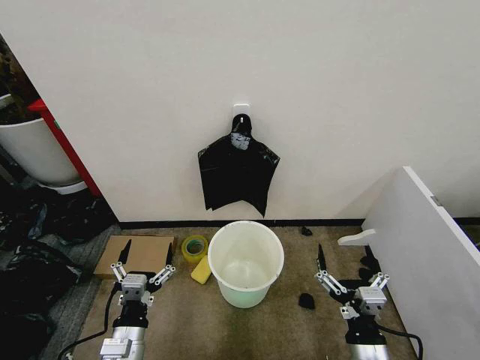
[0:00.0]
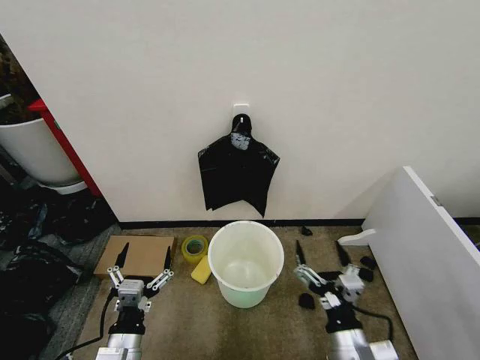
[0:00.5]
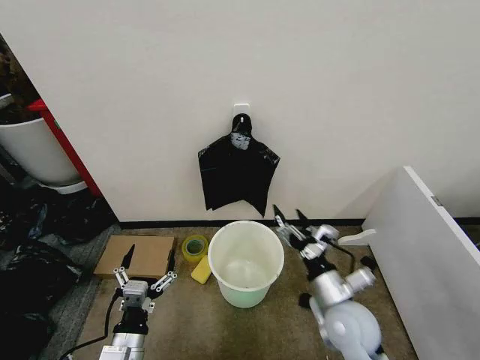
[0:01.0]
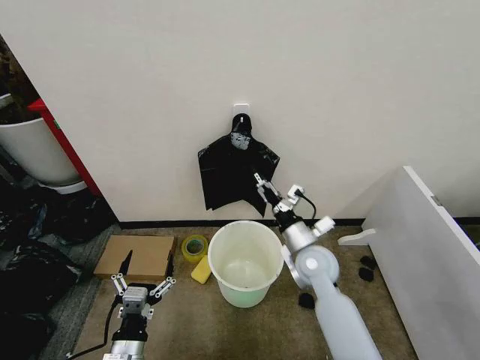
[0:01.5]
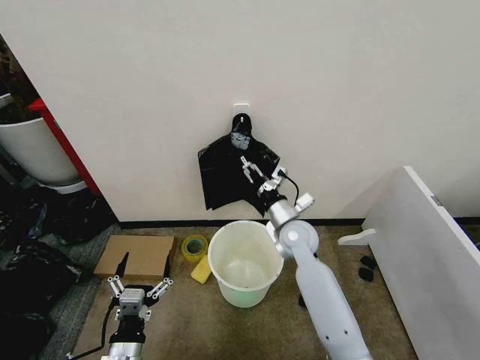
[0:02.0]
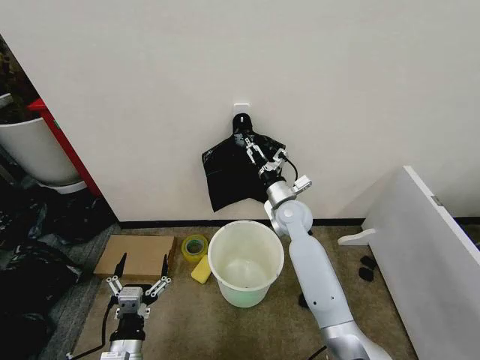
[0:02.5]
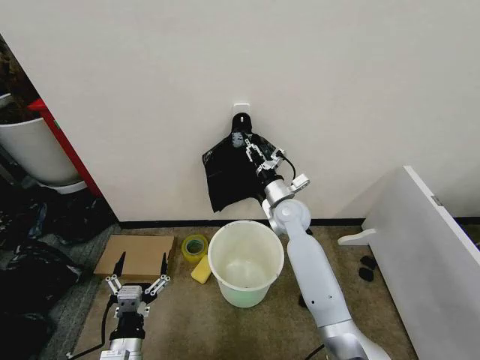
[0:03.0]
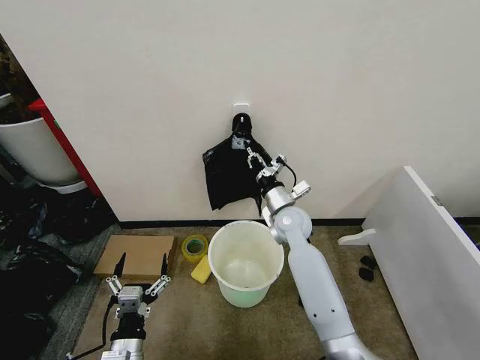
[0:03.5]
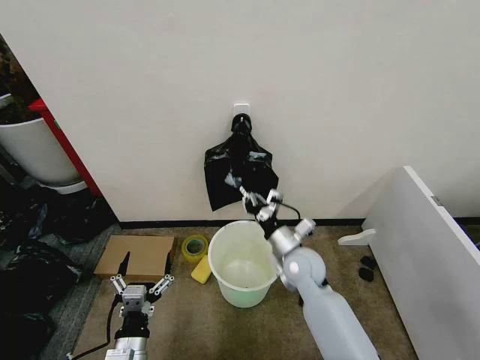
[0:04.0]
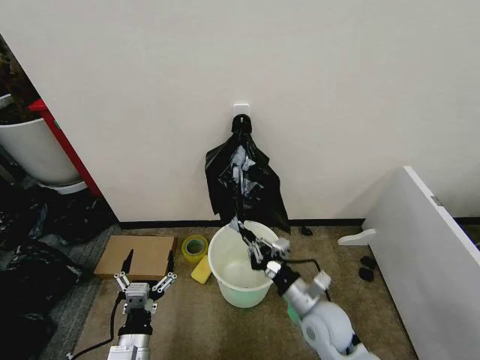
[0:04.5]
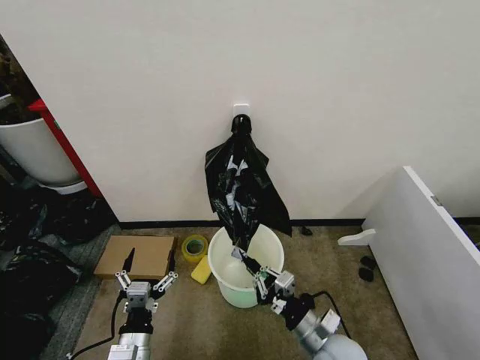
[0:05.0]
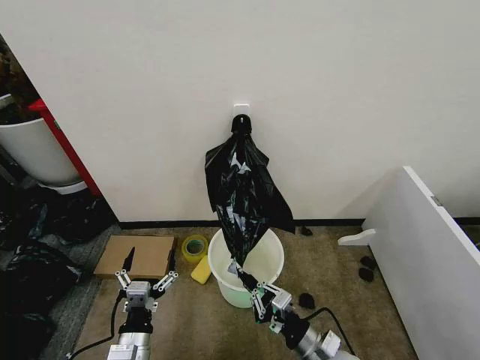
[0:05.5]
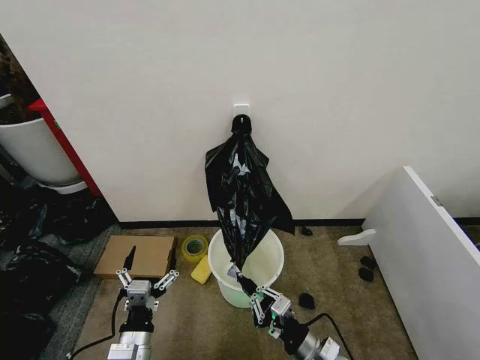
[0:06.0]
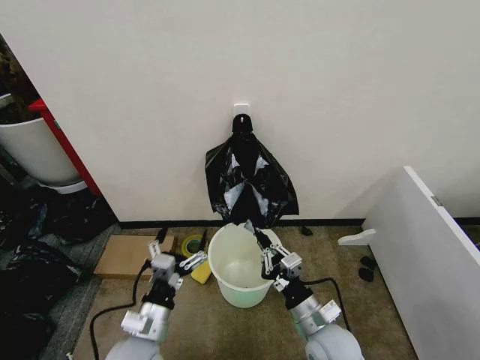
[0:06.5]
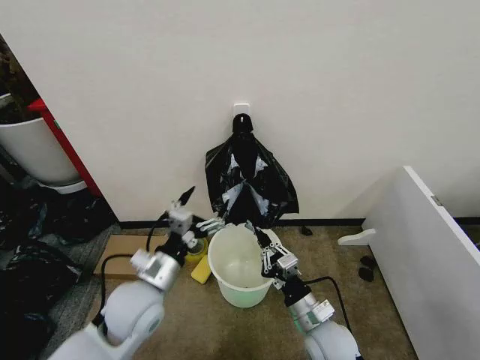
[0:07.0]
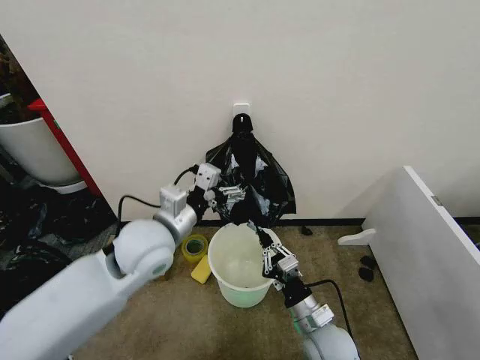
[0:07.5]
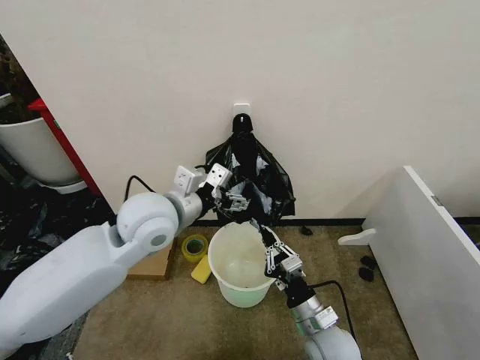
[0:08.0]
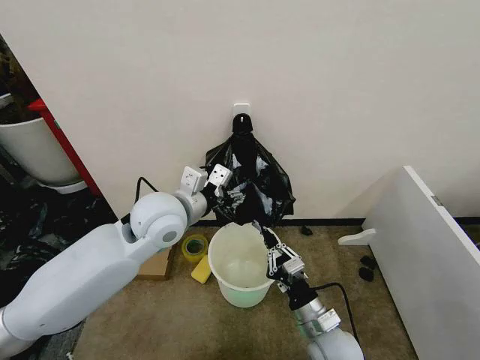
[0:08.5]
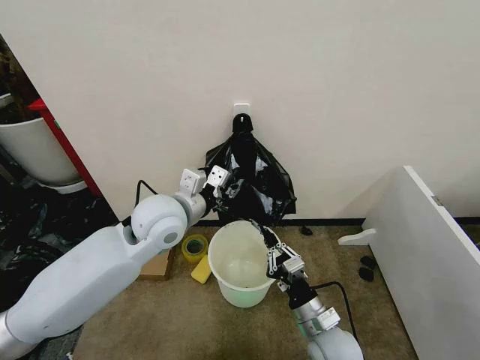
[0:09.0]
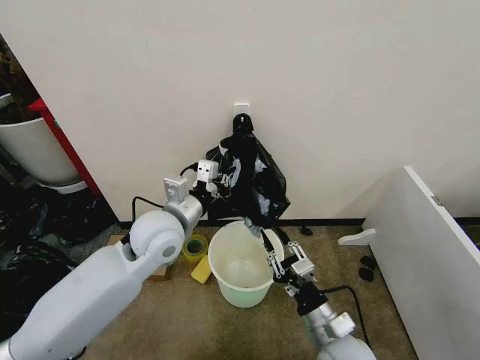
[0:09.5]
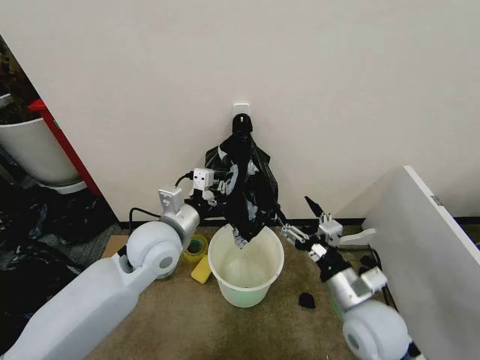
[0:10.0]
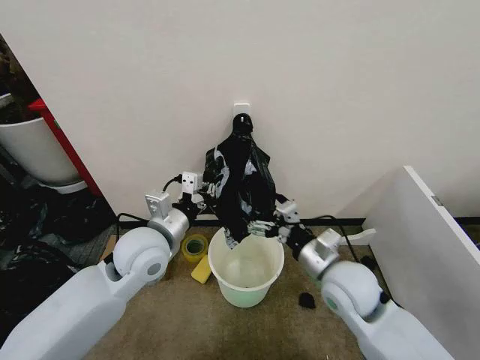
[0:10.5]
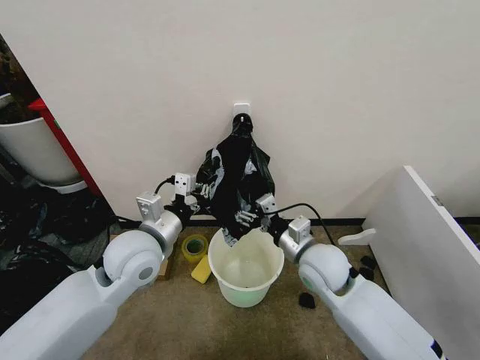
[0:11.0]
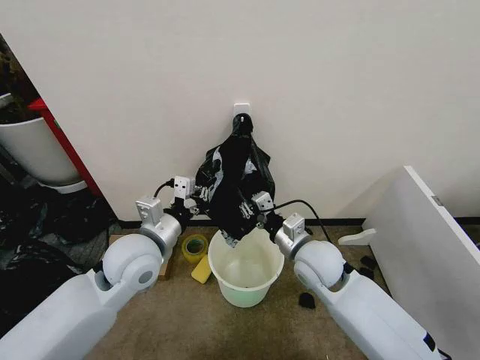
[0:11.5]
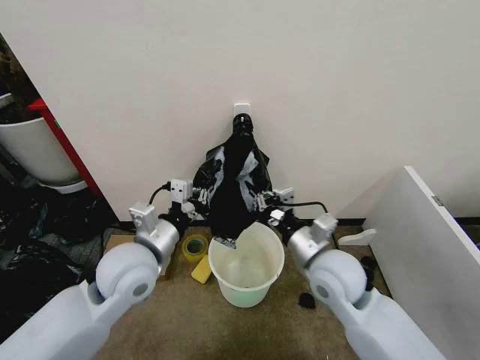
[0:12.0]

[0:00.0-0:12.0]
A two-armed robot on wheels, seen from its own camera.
Task of the whole recording: Place the garbage bag over the trash bin.
0:02.0 to 0:04.0: The right gripper travels backward by approximately 5 cm, and closes its fingers.
0:04.0 to 0:06.0: The right gripper travels backward by roughly 20 cm.
0:06.0 to 0:08.0: The right gripper shifts by roughly 5 cm. Meanwhile the left gripper heads upward and forward, covering about 35 cm.
0:08.0 to 0:10.0: The left gripper is displaced downward by approximately 5 cm, and closes up, while the right gripper moves upward, about 10 cm, and opens its fingers.
0:10.0 to 0:12.0: The right gripper shifts approximately 10 cm forward, to the left and upward, and closes up; the left gripper moves backward, roughly 5 cm.

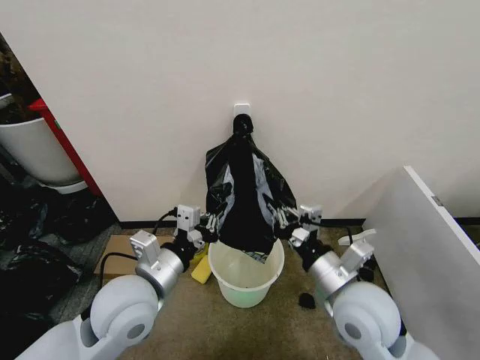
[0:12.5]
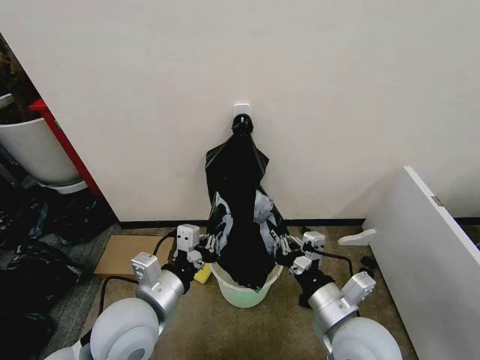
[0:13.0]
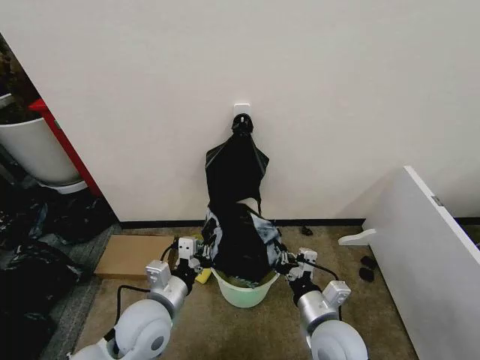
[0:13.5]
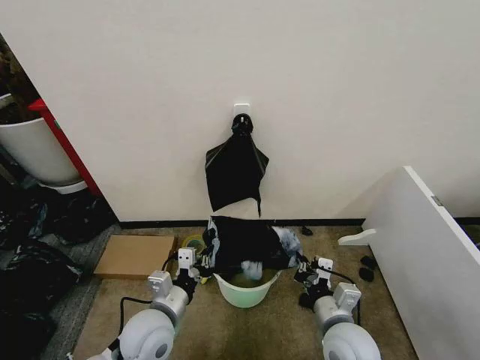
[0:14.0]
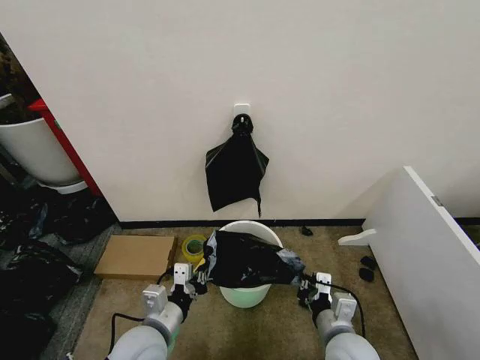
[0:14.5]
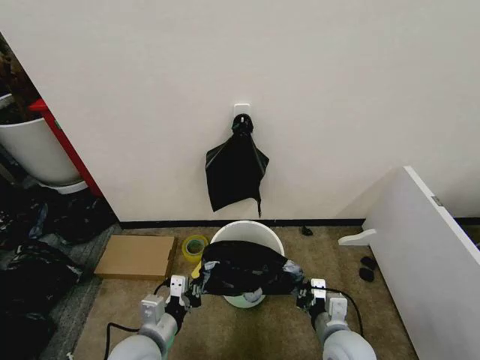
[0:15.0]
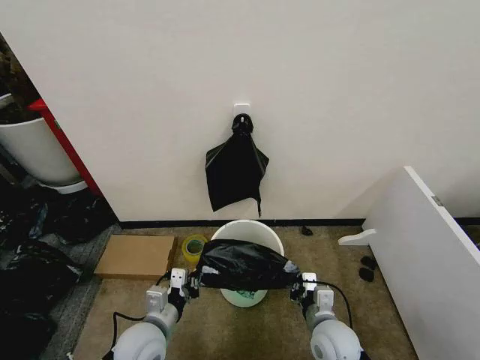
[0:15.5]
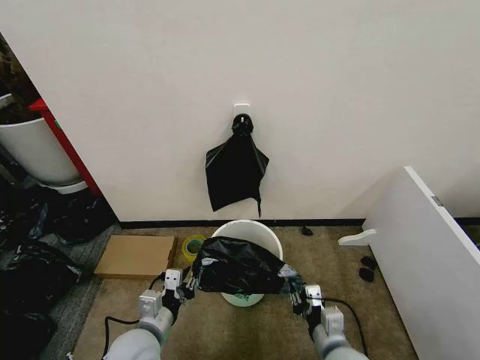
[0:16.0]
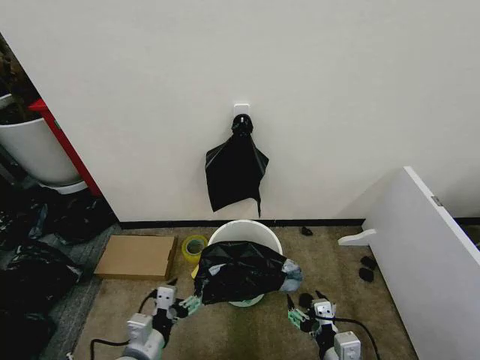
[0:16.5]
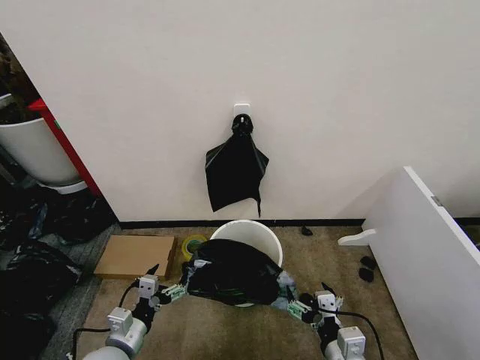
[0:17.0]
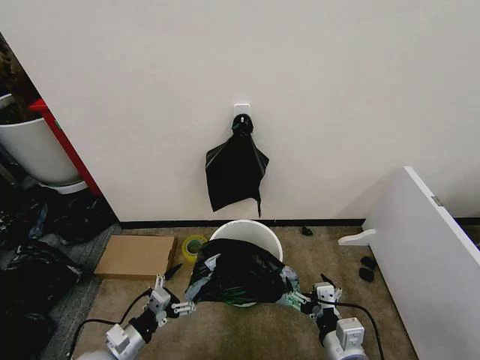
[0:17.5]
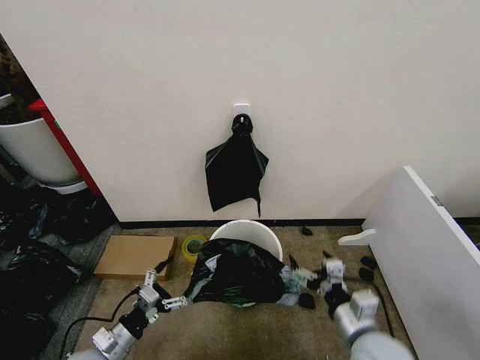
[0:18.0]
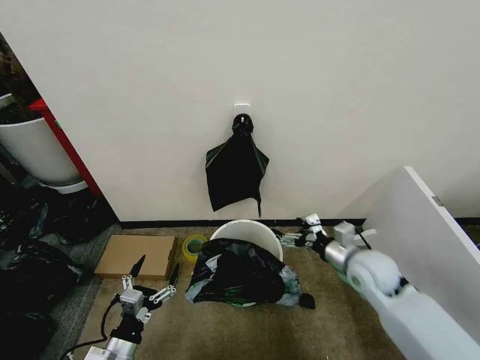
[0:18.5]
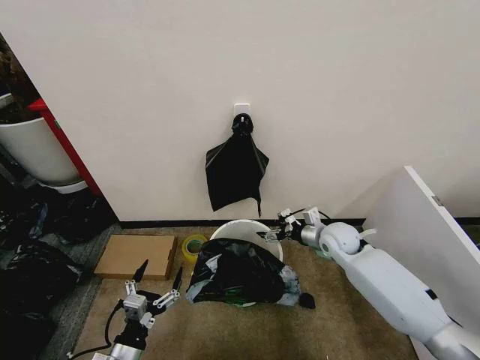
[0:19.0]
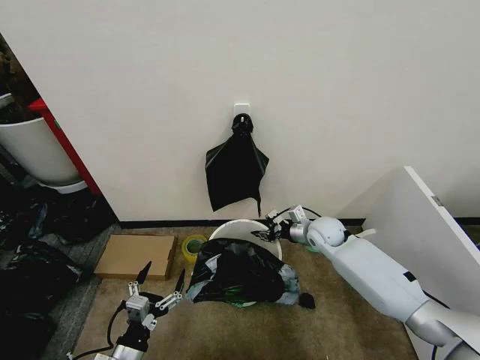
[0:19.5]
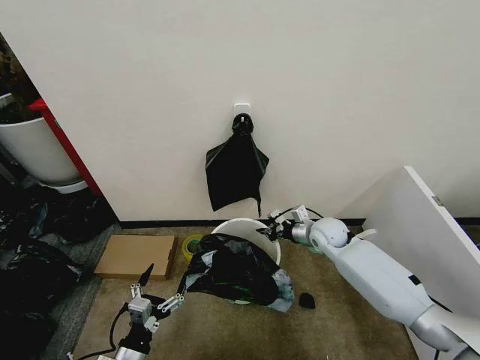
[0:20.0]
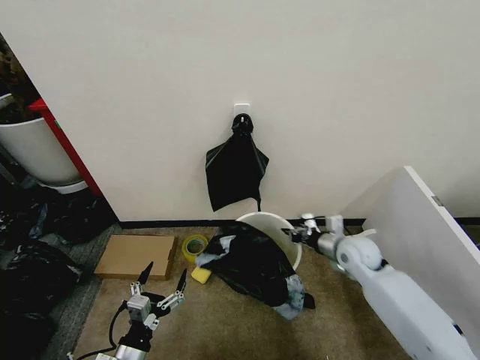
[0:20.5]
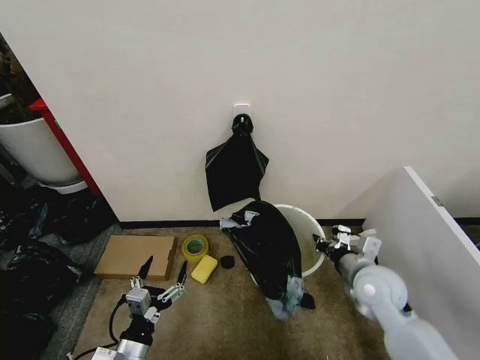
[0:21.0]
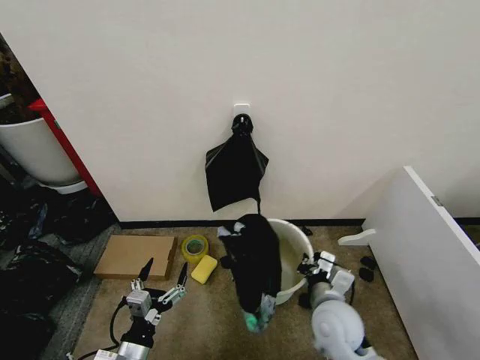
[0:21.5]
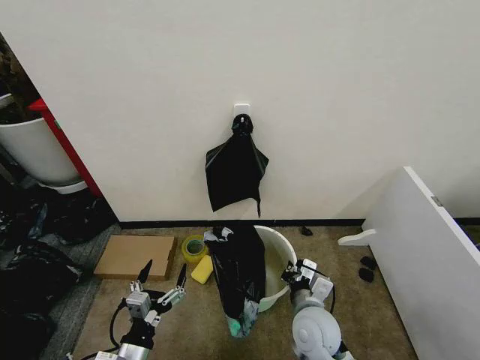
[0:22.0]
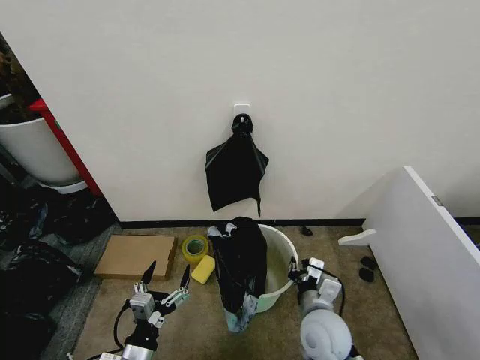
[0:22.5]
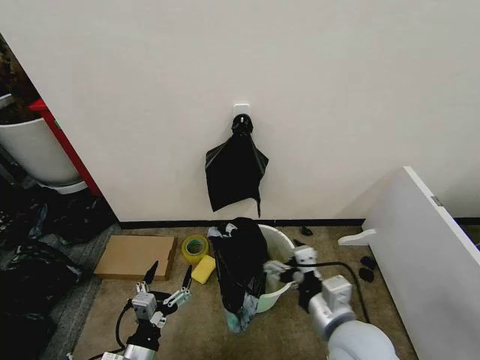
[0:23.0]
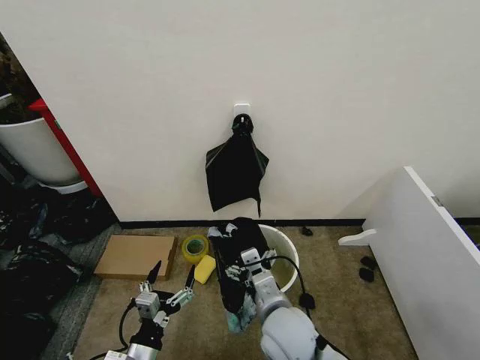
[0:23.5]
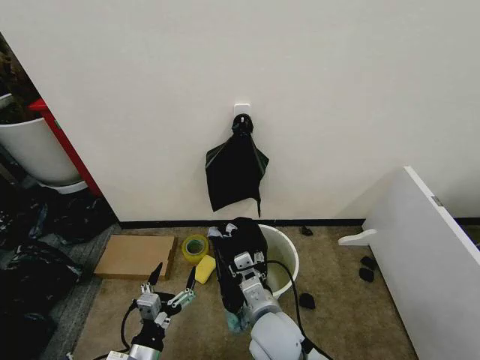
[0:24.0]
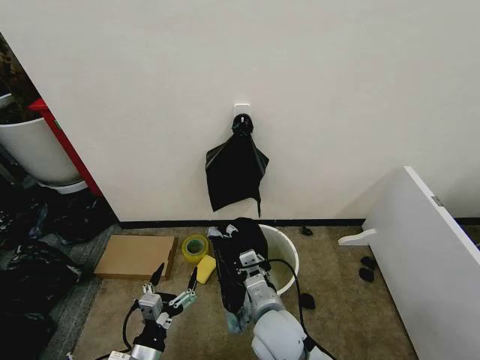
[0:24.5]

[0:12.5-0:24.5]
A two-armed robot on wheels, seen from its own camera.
Task of the whole recording: Place the garbage bag over the trash bin.
0:12.5 to 0:14.5: The two grippers go about 15 cm downward.
0:14.5 to 0:16.5: The left gripper ends up approximately 5 cm from where it was, and opens up. Meanwhile the right gripper is displaced backward by approximately 5 cm, and opens.
0:16.5 to 0:18.5: The right gripper is displaced forward by roughly 25 cm. Meanwhile the left gripper heads to the left, covering some 5 cm.
0:18.5 to 0:20.5: The right gripper moves forward, approximately 10 cm, and closes its fingers.
0:20.5 to 0:22.5: The right gripper shifts approximately 25 cm backward and to the left.
0:22.5 to 0:24.5: The right gripper shifts some 10 cm to the left, and opens, then closes again.

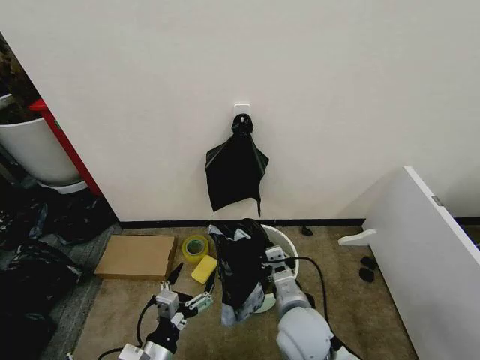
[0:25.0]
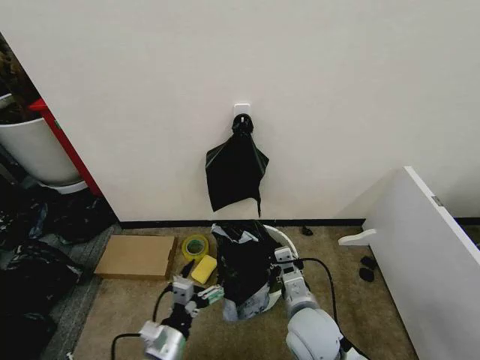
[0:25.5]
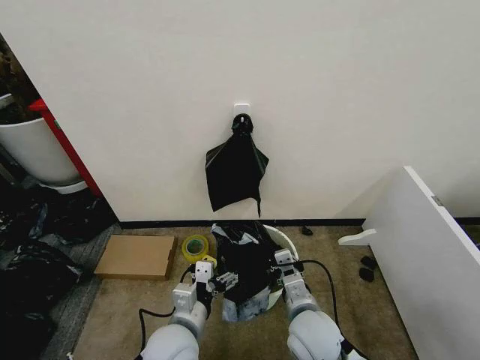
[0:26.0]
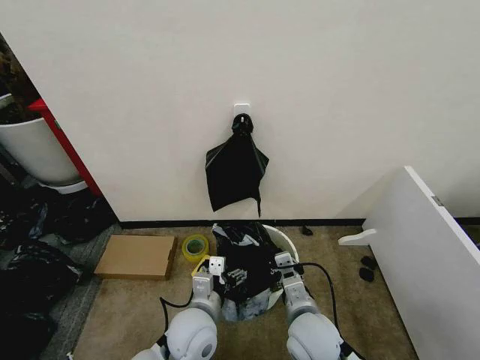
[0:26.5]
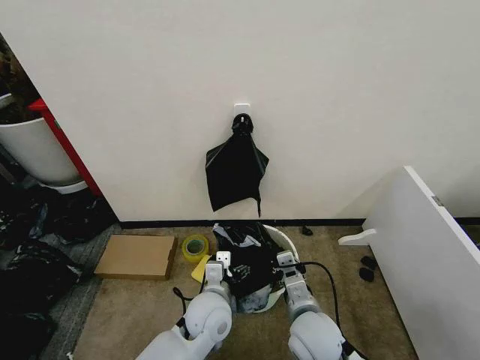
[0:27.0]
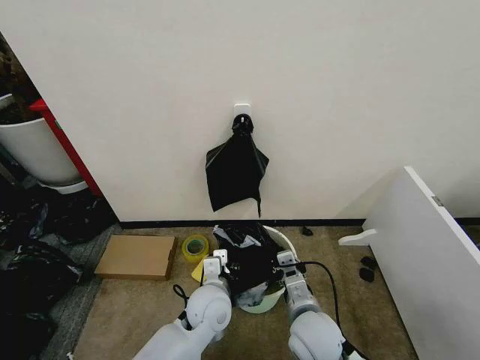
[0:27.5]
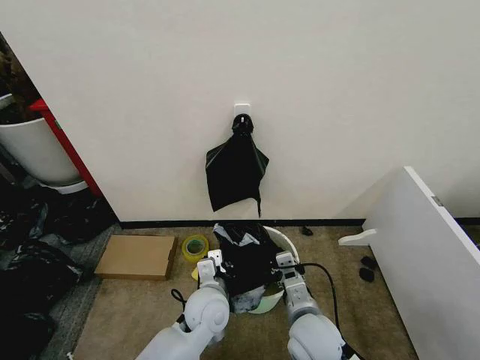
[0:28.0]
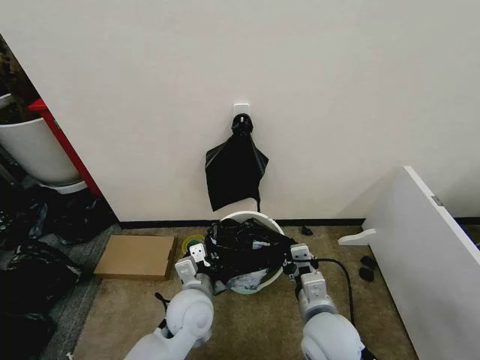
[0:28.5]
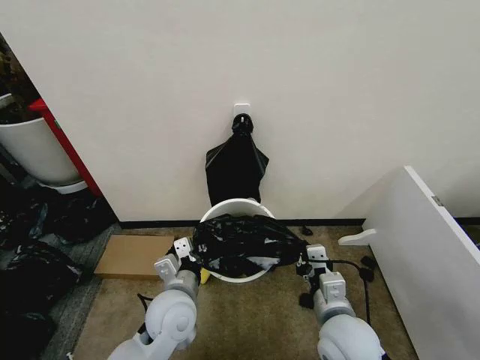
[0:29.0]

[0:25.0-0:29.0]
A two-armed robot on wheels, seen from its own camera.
Task of the whole recording: Place the garbage bag over the trash bin.
0:25.0 to 0:27.0: The left gripper is displaced forward and to the right by roughly 20 cm.
0:27.0 to 0:29.0: The right gripper changes place by roughly 5 cm. The left gripper is displaced to the left by about 5 cm, and closes up.
